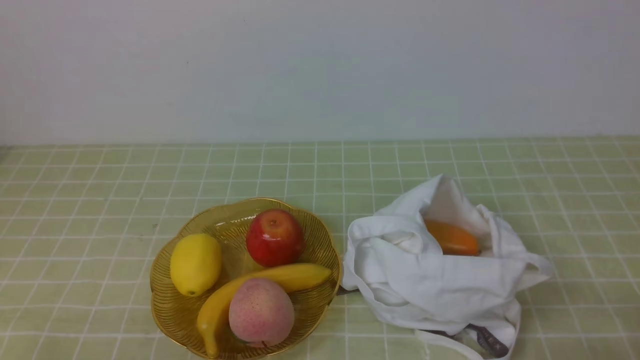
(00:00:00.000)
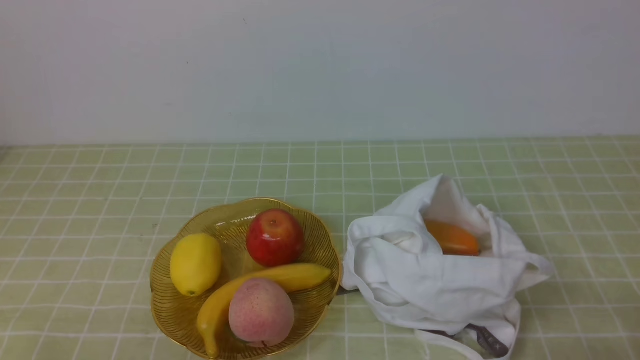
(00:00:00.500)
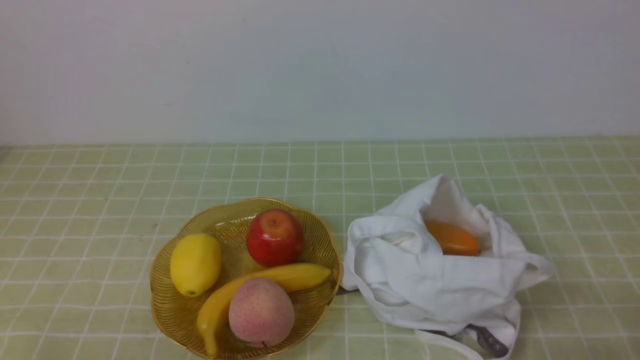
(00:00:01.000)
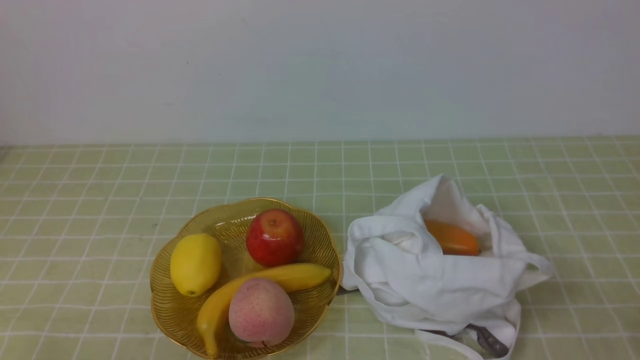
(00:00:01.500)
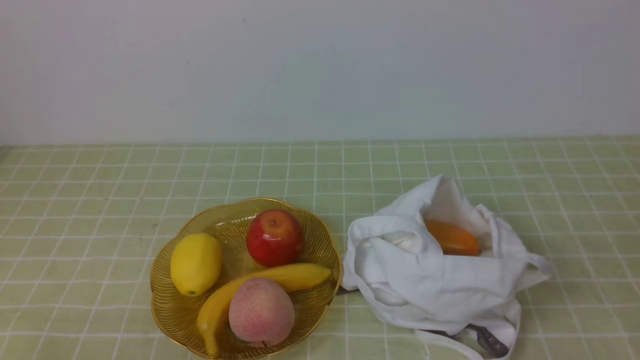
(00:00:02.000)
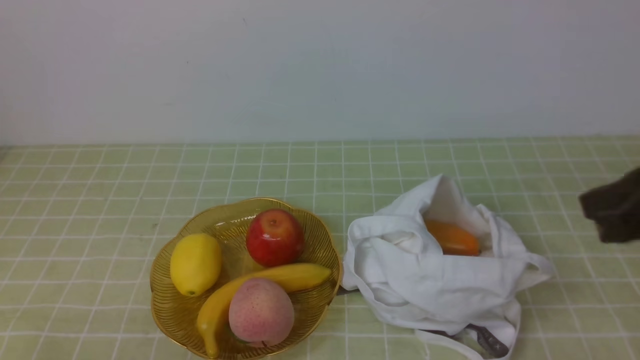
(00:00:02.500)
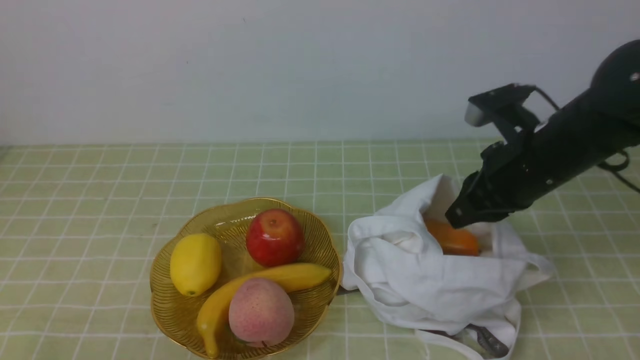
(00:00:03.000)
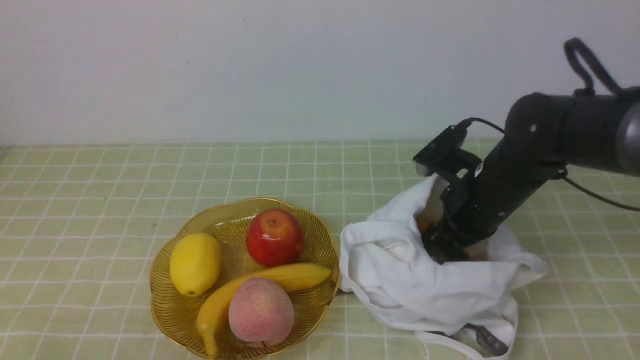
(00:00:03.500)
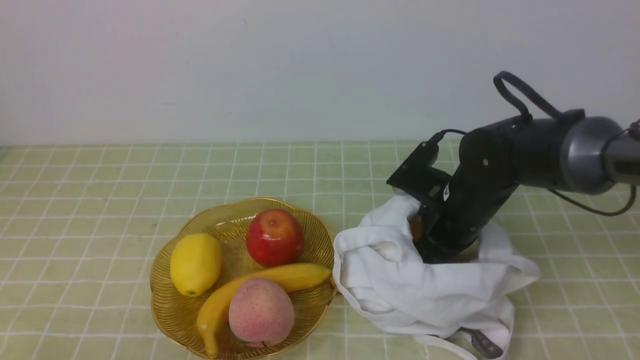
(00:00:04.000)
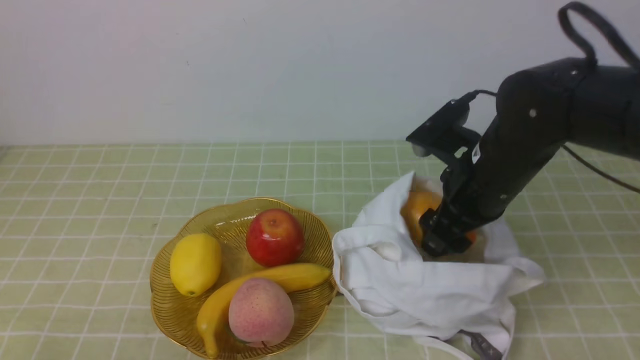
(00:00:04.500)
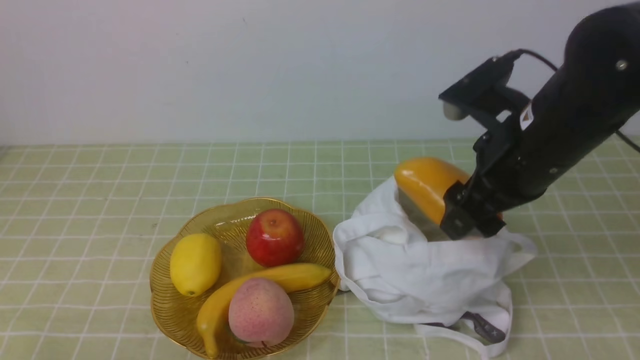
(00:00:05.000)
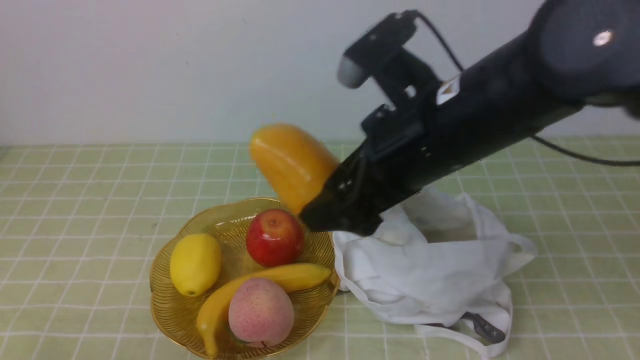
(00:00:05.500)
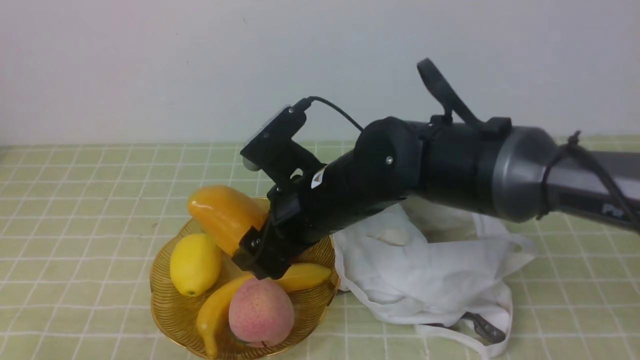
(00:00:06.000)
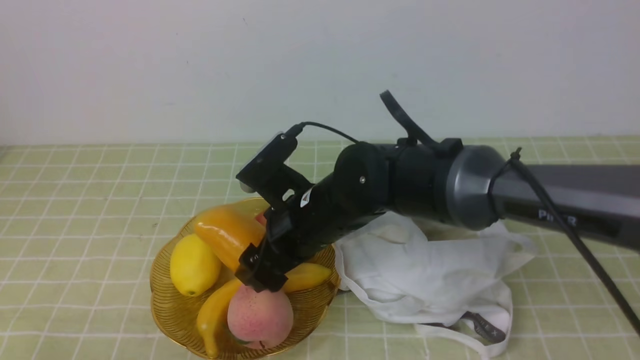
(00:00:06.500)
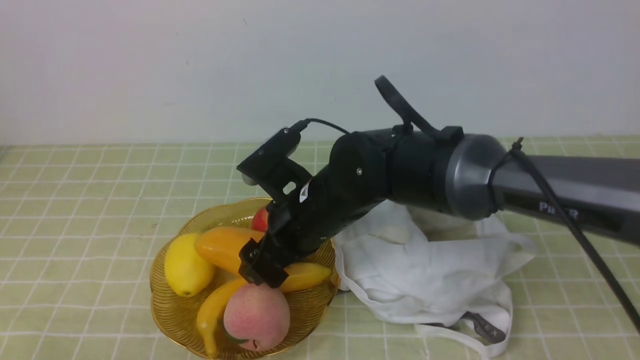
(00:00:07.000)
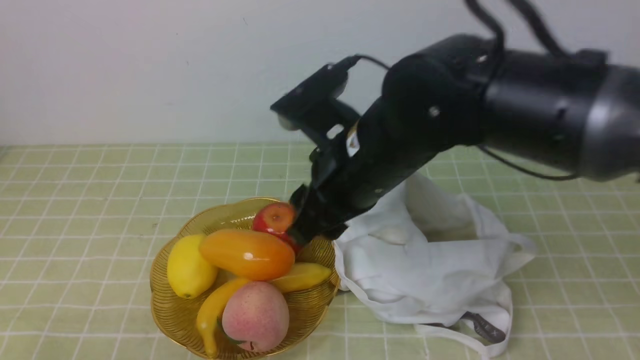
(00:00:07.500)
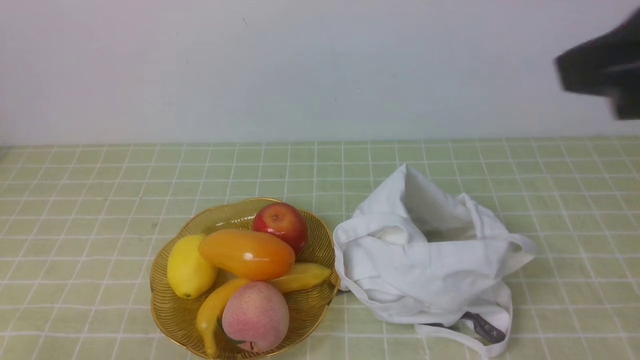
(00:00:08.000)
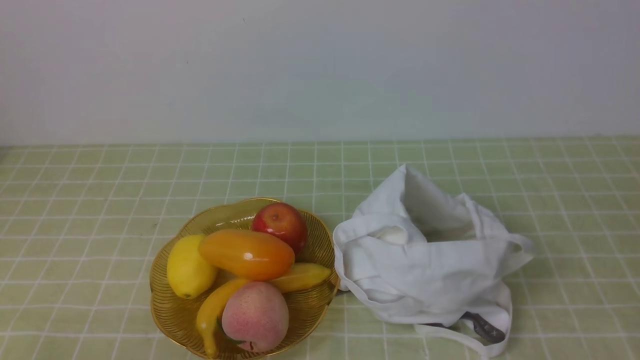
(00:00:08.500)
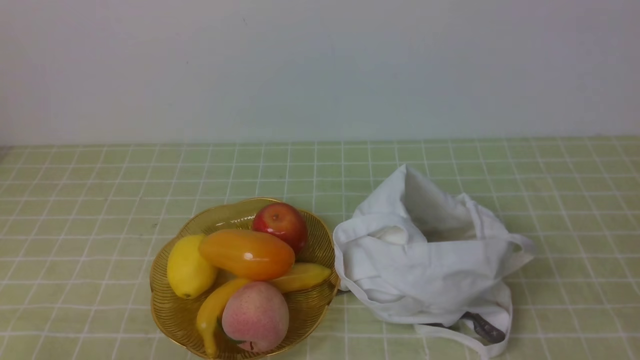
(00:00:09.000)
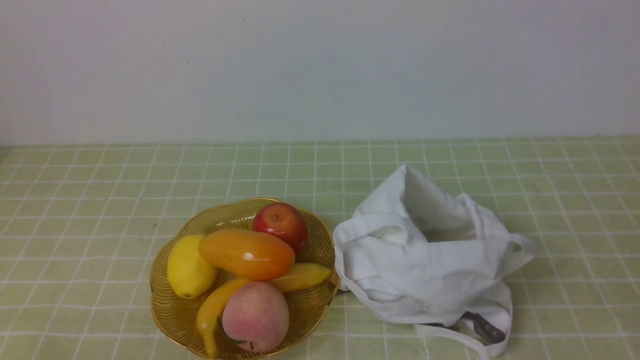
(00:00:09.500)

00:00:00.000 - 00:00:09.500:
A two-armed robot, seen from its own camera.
Step, 00:00:00.000 - 00:00:04.500: use the right arm to grab a mango from the bag.
Step, 00:00:05.000 - 00:00:06.500: use the right arm to put the mango into the empty plate on the left.
00:00:02.000 - 00:00:04.000: The right gripper heads forward and to the left, covering about 35 cm, and opens.
00:00:04.000 - 00:00:05.500: The right gripper moves upward and backward, approximately 20 cm.
00:00:05.500 - 00:00:07.500: The right gripper shifts some 10 cm to the left and downward.
00:00:07.500 - 00:00:09.500: The right gripper heads to the right and backward, covering about 35 cm, and closes.

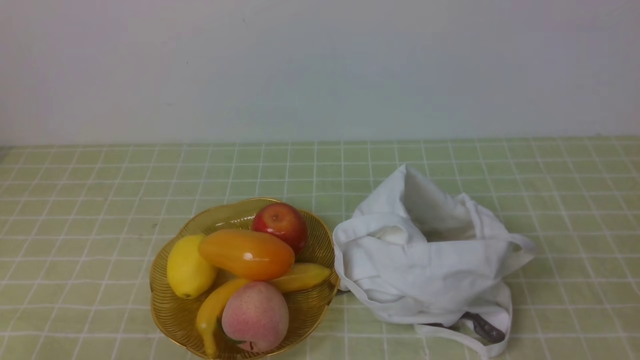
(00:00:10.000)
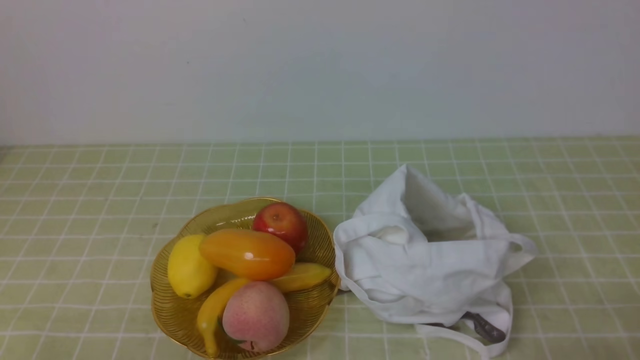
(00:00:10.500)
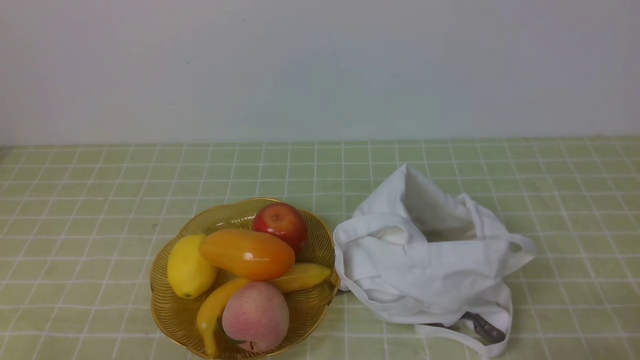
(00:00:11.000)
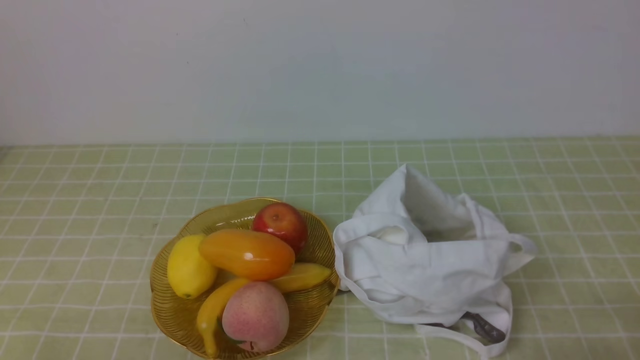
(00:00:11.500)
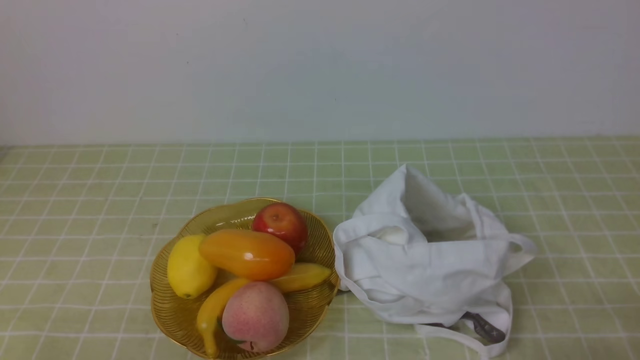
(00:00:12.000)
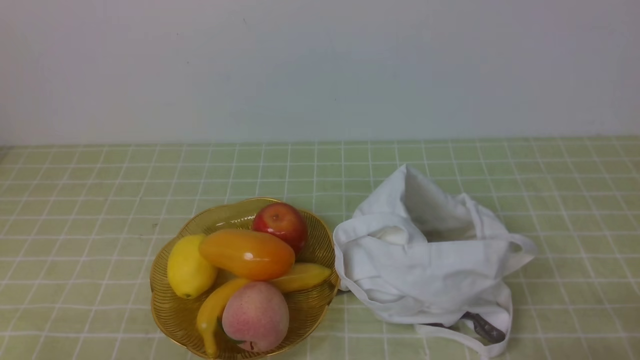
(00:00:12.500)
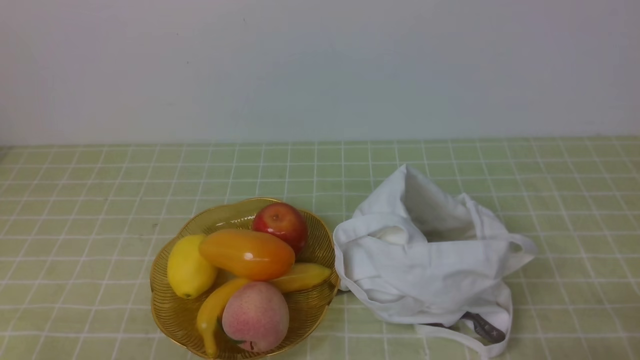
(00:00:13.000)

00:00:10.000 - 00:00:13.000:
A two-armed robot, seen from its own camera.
00:00:11.500 - 00:00:13.000: The two grippers keep their place.
